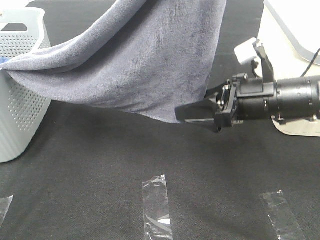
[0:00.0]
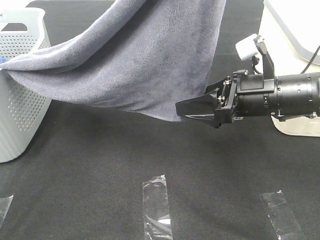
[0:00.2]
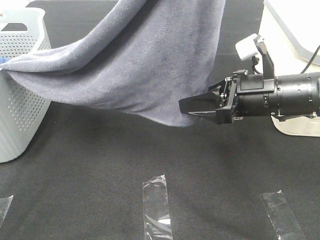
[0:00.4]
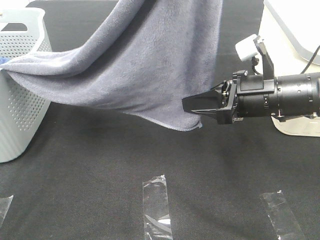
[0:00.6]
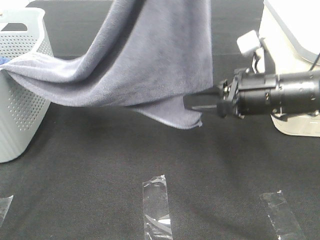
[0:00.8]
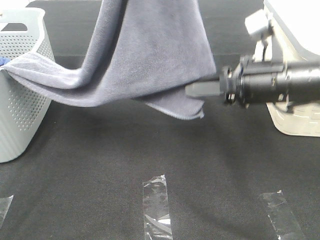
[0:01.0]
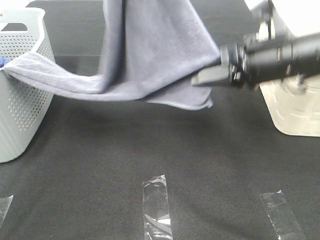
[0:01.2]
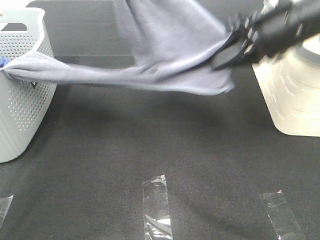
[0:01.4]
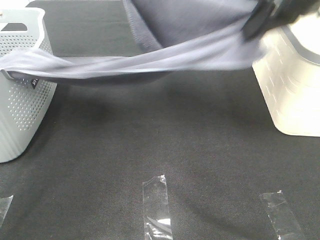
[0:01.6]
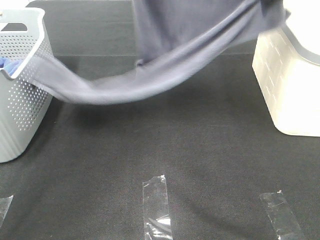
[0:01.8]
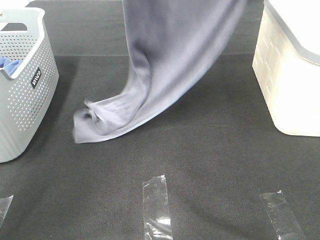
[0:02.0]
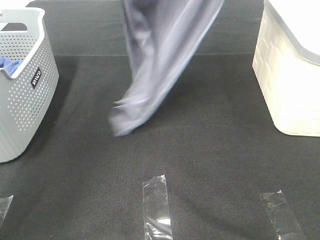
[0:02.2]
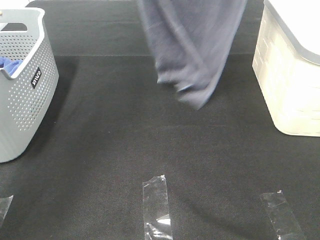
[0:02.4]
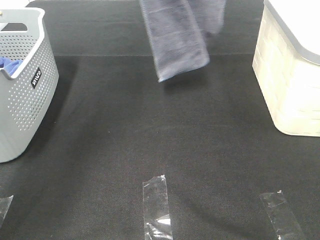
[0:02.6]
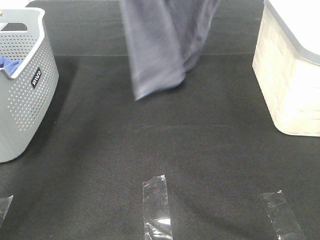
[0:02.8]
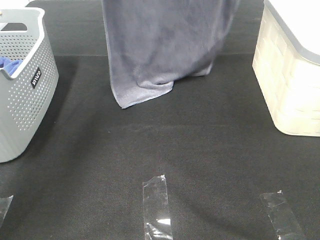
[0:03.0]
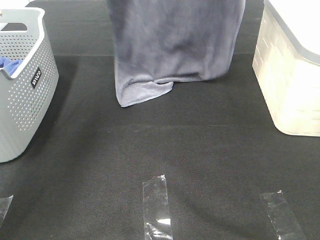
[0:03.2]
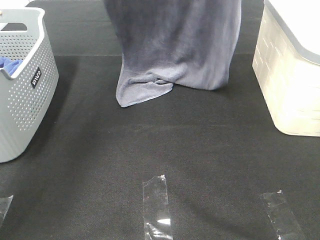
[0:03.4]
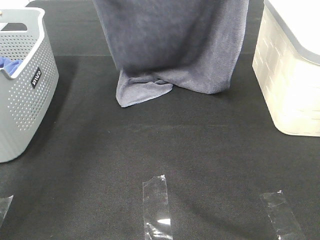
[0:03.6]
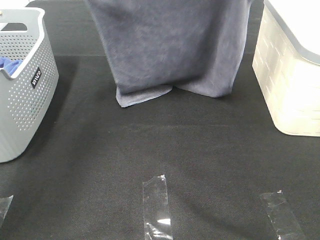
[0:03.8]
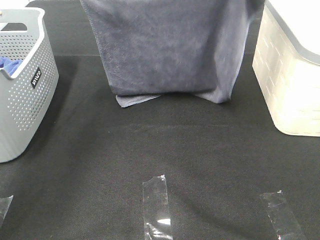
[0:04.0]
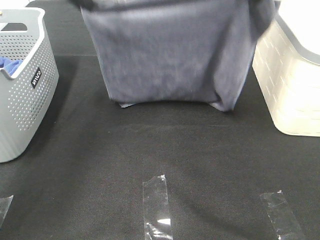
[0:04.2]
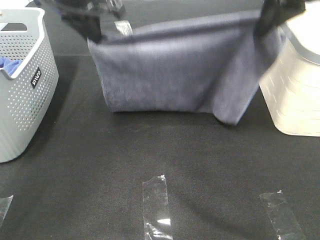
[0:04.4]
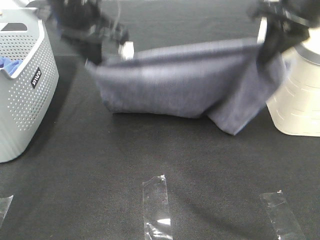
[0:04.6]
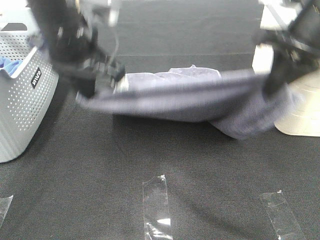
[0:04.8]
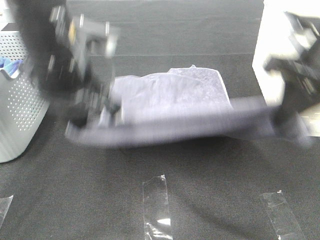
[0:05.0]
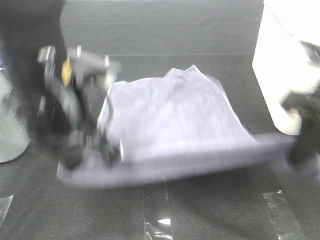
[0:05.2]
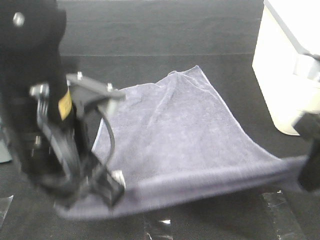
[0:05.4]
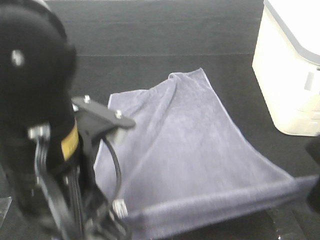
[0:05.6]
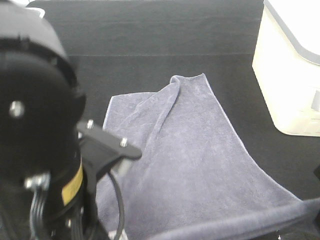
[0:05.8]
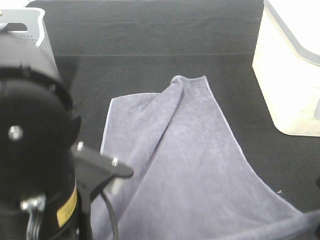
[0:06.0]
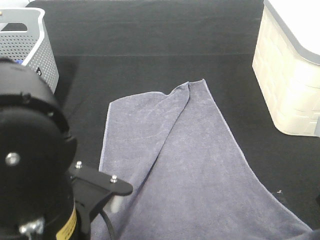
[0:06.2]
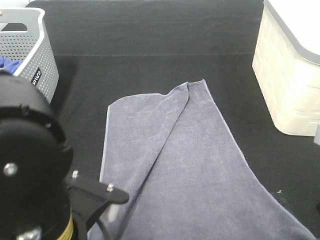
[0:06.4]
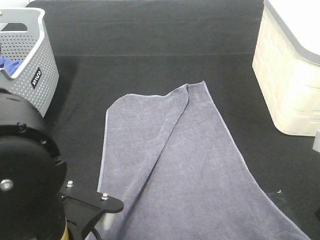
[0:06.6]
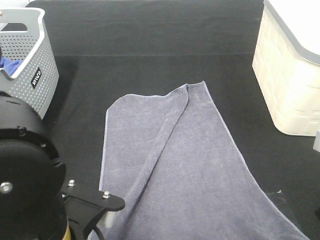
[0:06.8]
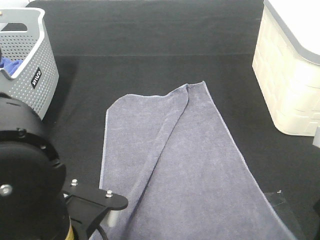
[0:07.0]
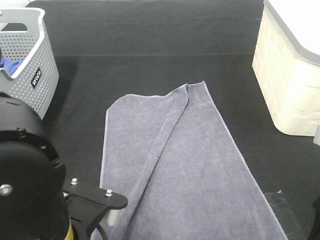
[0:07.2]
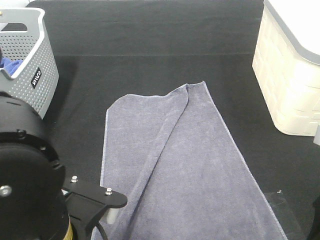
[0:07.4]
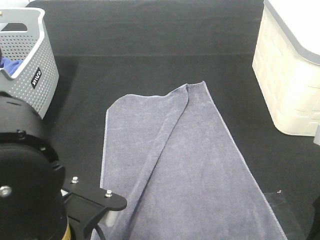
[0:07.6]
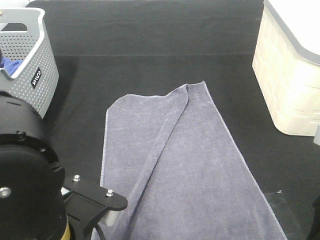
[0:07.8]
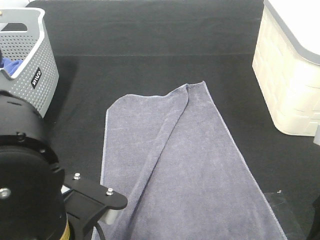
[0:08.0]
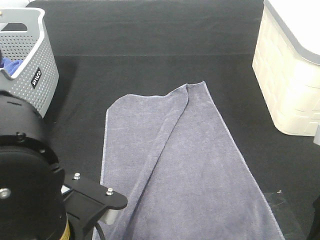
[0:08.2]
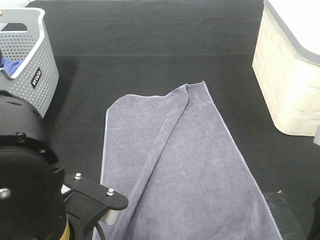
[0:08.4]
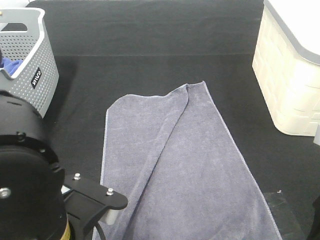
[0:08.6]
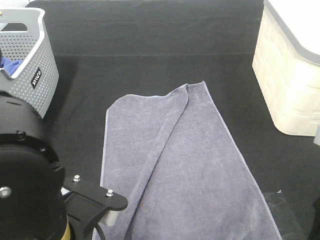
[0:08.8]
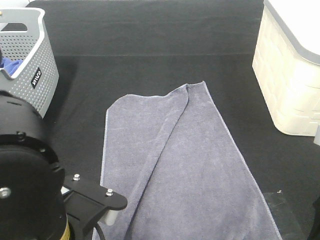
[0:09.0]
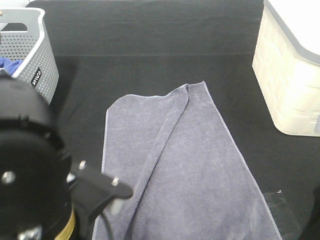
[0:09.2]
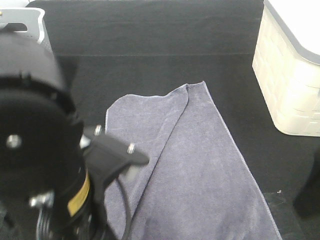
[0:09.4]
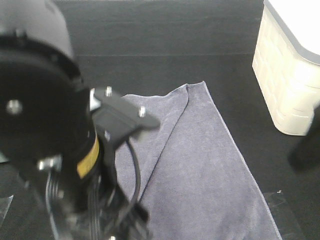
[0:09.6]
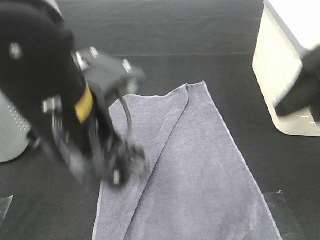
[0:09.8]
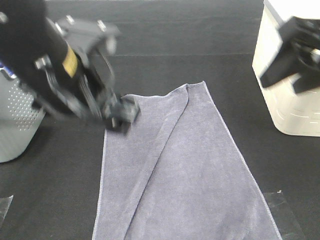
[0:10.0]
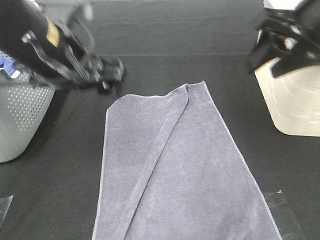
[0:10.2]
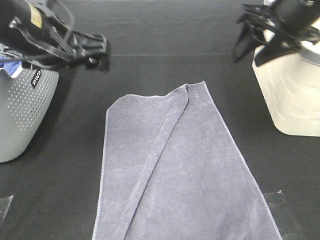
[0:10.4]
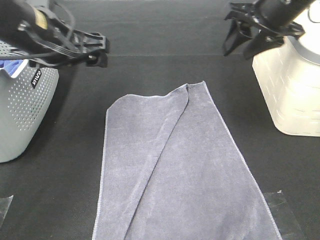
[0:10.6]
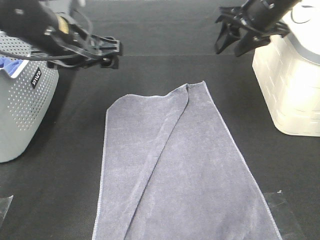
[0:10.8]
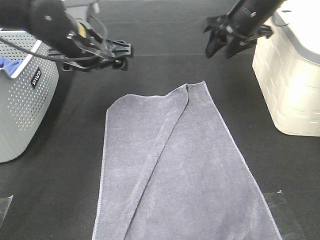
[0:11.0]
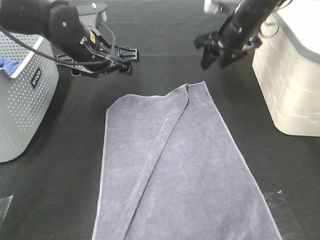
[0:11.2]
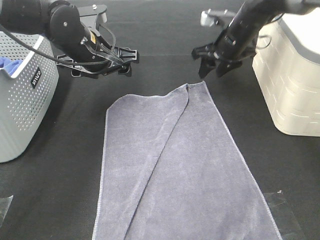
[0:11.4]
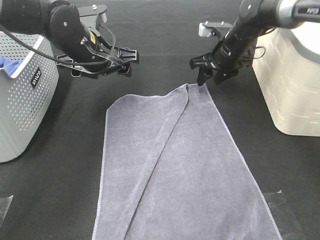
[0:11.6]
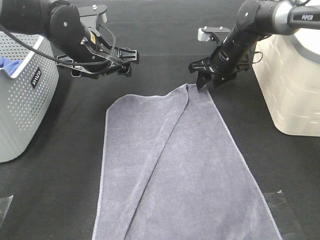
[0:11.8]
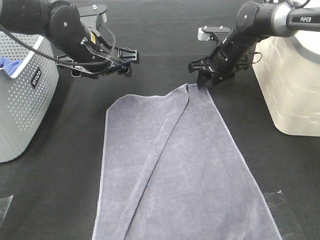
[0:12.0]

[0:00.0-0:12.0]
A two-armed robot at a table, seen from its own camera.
Task of the whole recording: Remove the towel and place it.
Step, 0.0 to 4.6 s: Left hand: spread the grey towel flat on the table.
Step, 0.0 to 4.6 s: Right hand: spread the grey towel flat on the table.
0.0 to 1.6 s: The right gripper shifts some 20 cm upward, and closes its fingers; the left gripper travels forward and downward by some 20 cm.
1.6 to 3.0 s: The left gripper moves to the left, forward and upward, some 10 cm. Meanwhile the right gripper travels upward and forward by about 15 cm.
3.0 to 4.4 s: Both grippers travel together downward and backward, approximately 15 cm.
4.4 to 6.0 s: The right gripper shifts some 25 cm backward and downward; the left gripper is displaced backward by about 30 cm.
6.0 to 7.6 s: The right gripper opens; the left gripper opens up.
7.6 to 9.0 s: The left gripper closes, then reopens.
9.0 to 10.4 s: The grippers both shift forward by some 25 cm.
10.4 to 12.0 s: The left gripper goes roughly 10 cm forward and downward, while the right gripper travels downward and forward by approximately 25 cm.

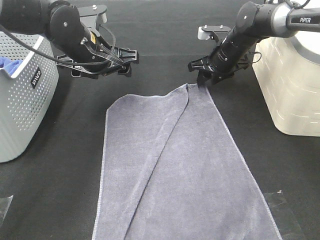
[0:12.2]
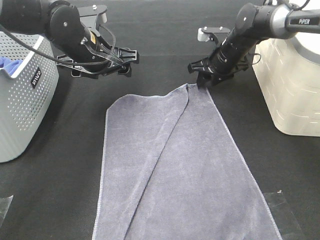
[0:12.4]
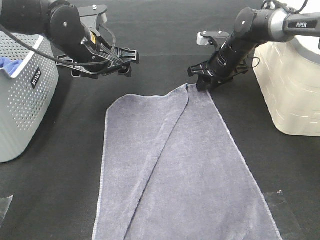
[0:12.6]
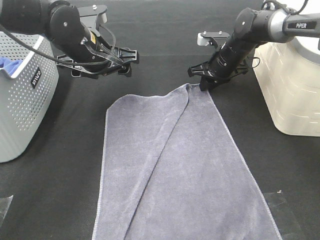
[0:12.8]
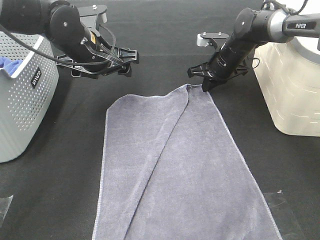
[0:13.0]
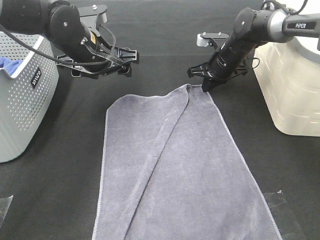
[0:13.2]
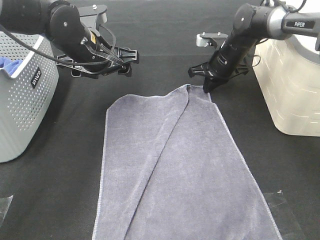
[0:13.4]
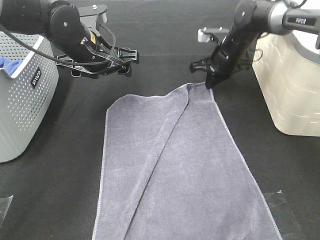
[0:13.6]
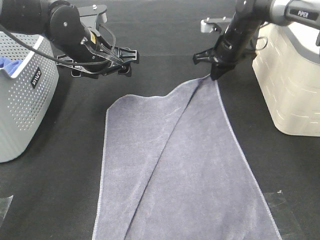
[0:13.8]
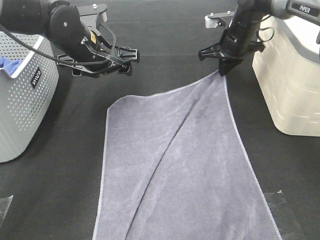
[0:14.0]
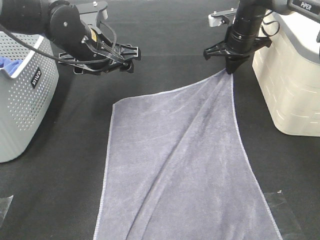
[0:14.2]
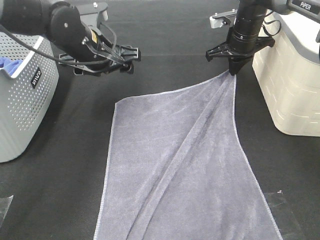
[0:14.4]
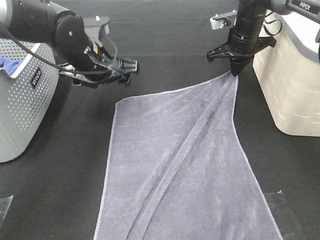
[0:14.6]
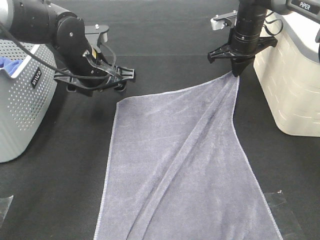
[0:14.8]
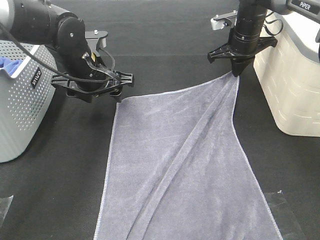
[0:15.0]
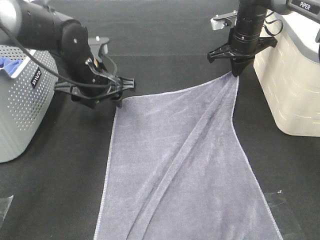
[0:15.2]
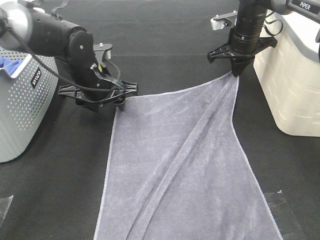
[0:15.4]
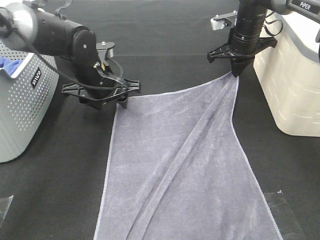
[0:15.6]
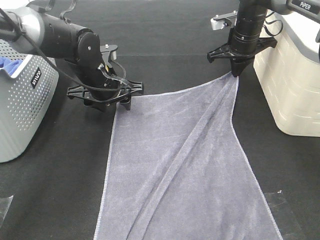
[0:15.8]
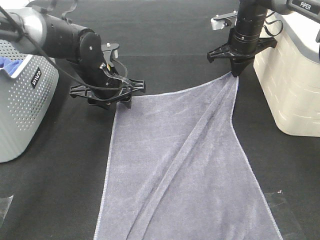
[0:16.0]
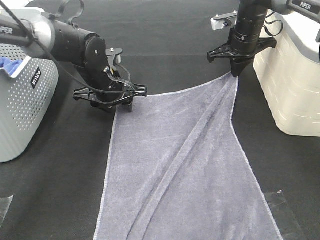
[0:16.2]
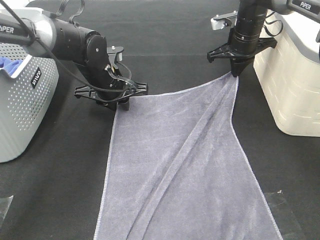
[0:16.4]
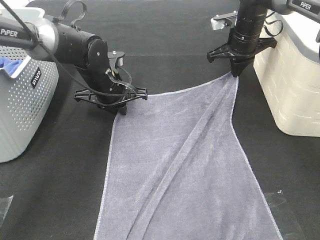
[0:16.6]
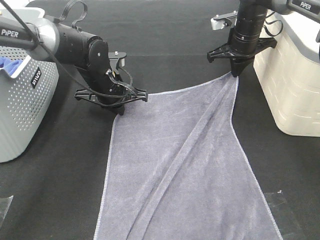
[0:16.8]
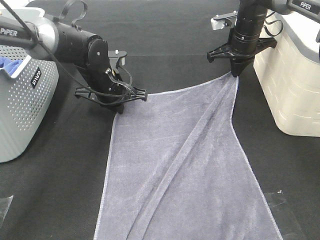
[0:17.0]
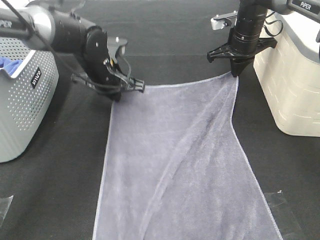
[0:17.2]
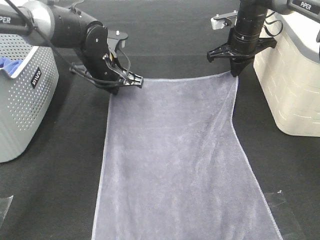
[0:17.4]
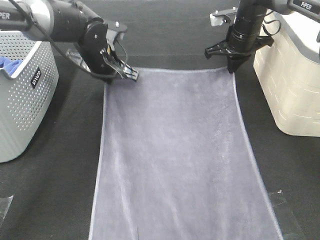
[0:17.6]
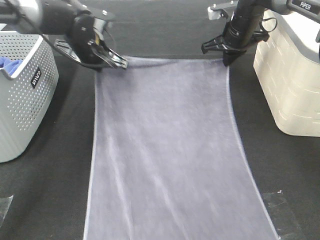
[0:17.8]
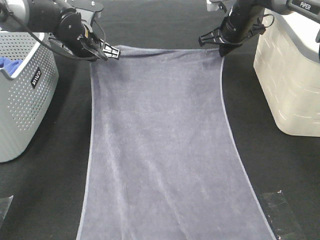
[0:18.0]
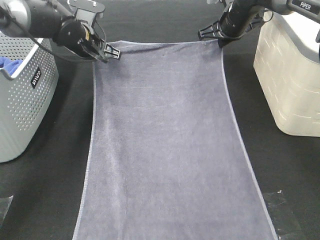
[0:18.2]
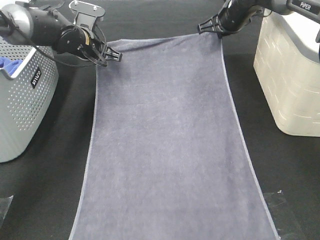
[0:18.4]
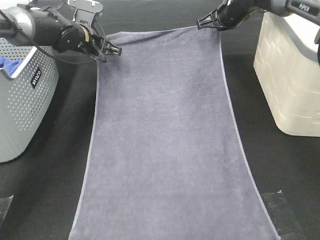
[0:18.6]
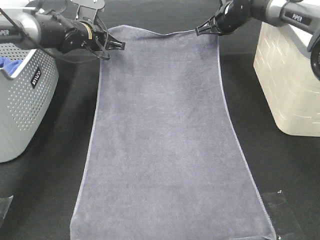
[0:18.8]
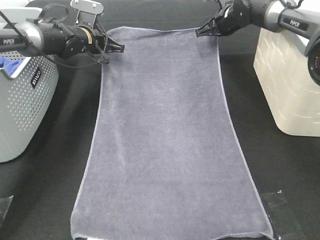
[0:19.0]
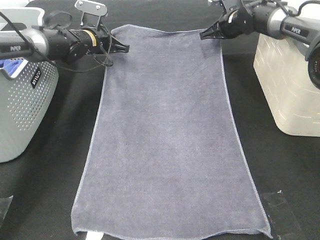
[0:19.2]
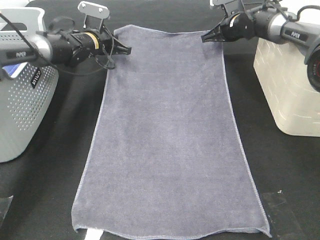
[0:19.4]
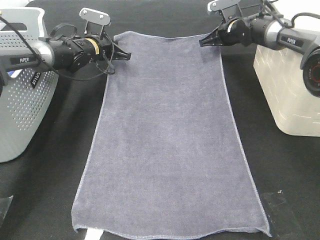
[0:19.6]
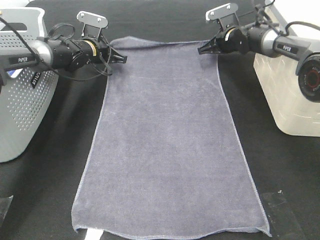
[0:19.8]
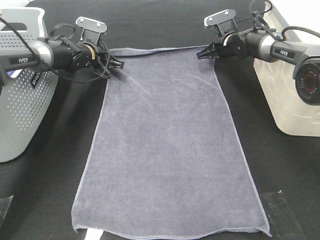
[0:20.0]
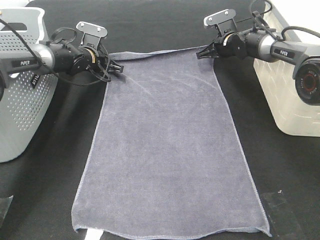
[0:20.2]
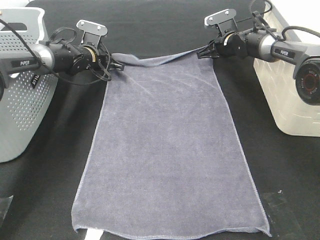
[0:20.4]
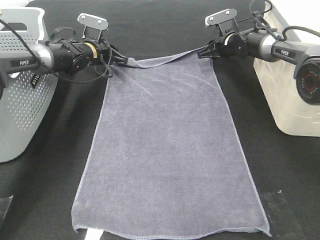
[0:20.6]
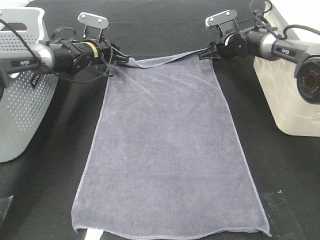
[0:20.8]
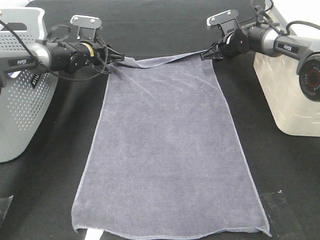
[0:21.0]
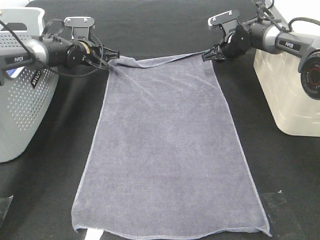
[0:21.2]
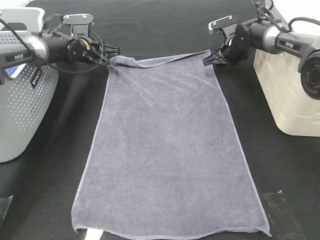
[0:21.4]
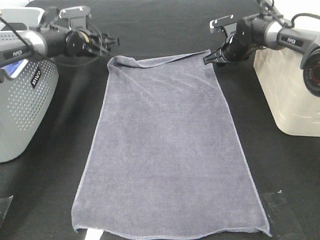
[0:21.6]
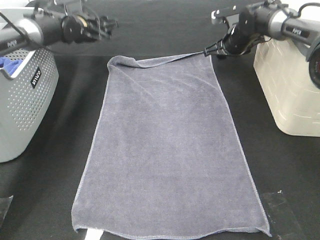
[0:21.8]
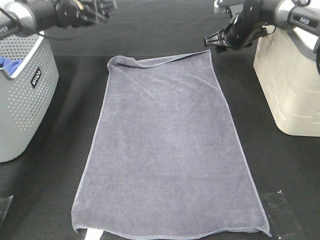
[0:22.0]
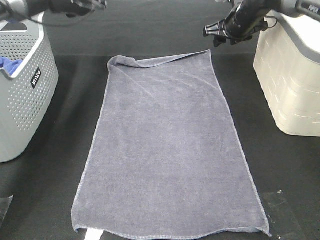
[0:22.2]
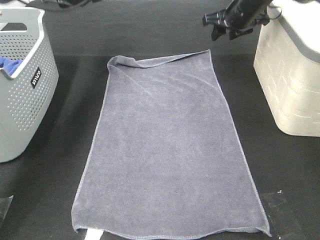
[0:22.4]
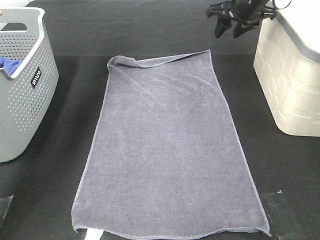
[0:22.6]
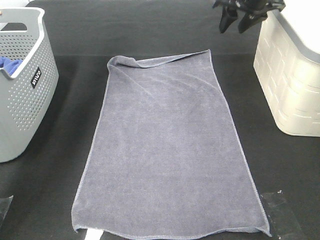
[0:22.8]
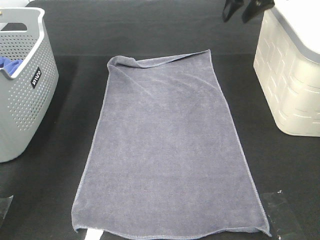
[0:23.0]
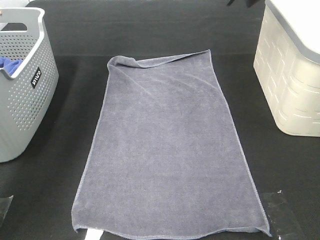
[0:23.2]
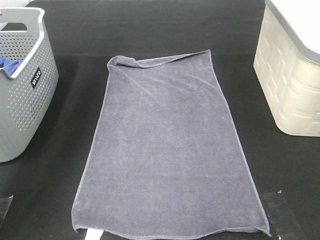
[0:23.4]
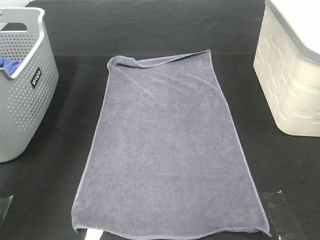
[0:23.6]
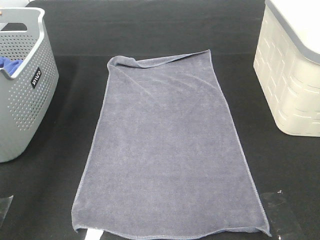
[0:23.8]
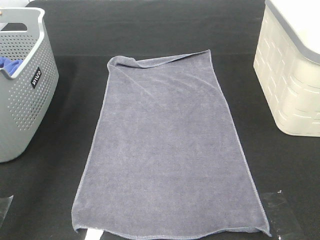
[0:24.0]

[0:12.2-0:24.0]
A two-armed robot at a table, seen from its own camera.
Task of the whole recording: Remove the towel and place it.
Step, 12.2 to 14.8 s: Left hand:adjust the gray towel.
Step, 12.2 to 14.8 s: Right hand:adjust the gray towel.
12.2 to 13.6 s: The right gripper closes up.
13.6 to 15.2 s: The right gripper shifts by approximately 5 cm.
15.2 to 16.6 s: The left gripper moves approximately 5 cm, and closes its fingers.
16.6 to 18.2 s: The left gripper moves forward, to the left and upward, approximately 10 cm.
18.2 to 19.6 s: The left gripper heads forward and downward, covering approximately 10 cm. Meanwhile the right gripper is displaced downward by some 5 cm.
19.6 to 21.0 s: The right gripper opens up, while the left gripper opens up.
21.0 to 22.6 s: The left gripper shifts roughly 20 cm upward; the right gripper is displaced upward and backward by some 15 cm.
22.6 to 24.0 s: The right gripper travels upward and backward by roughly 20 cm. Meanwhile the left gripper goes some 25 cm backward and upward.
